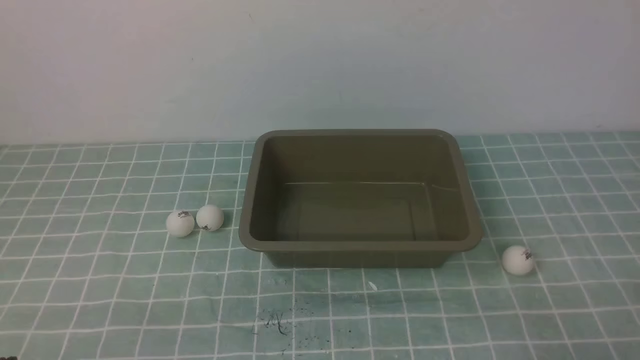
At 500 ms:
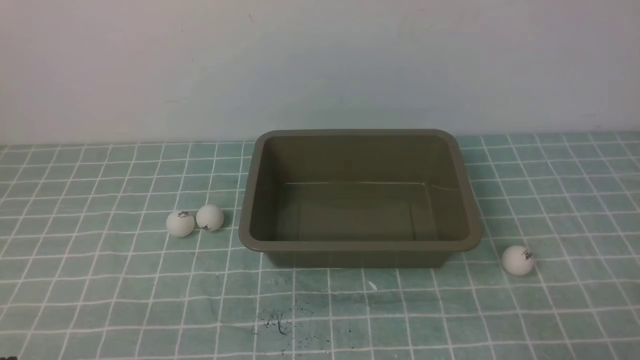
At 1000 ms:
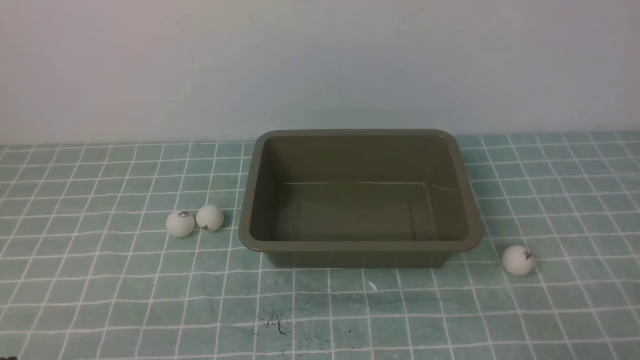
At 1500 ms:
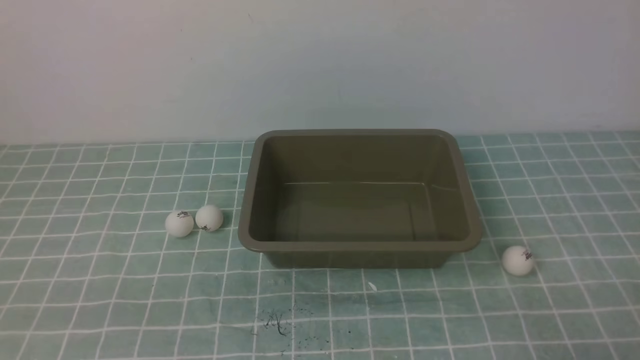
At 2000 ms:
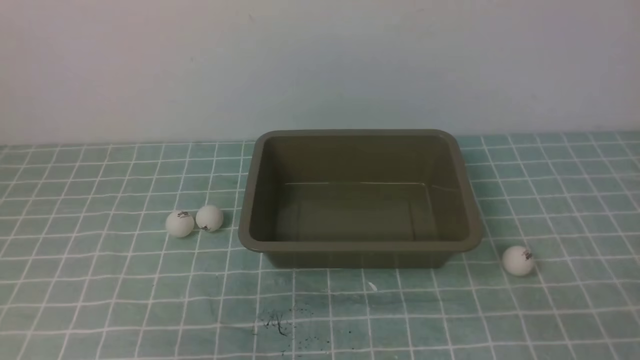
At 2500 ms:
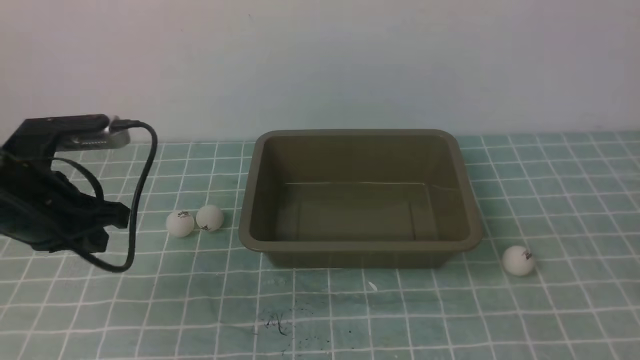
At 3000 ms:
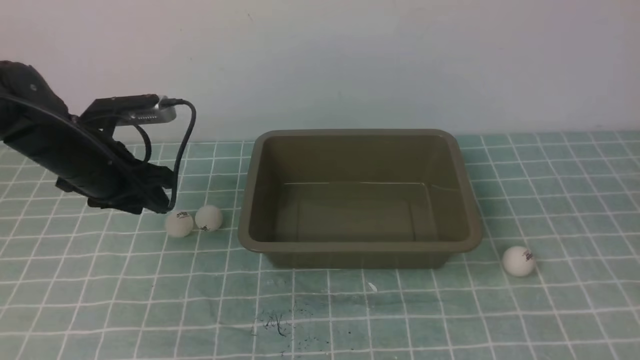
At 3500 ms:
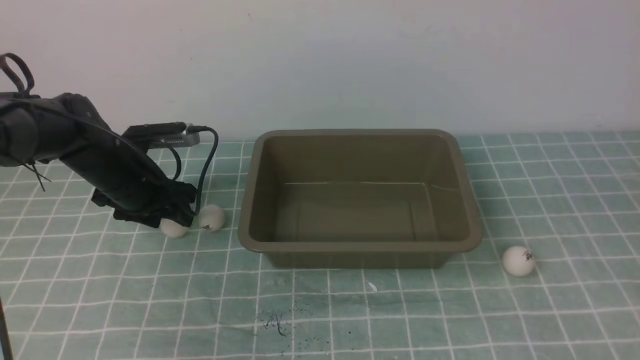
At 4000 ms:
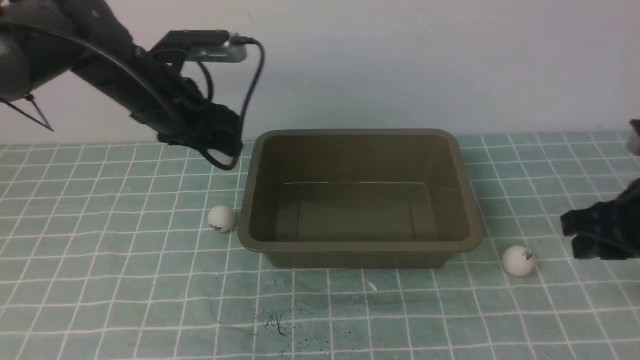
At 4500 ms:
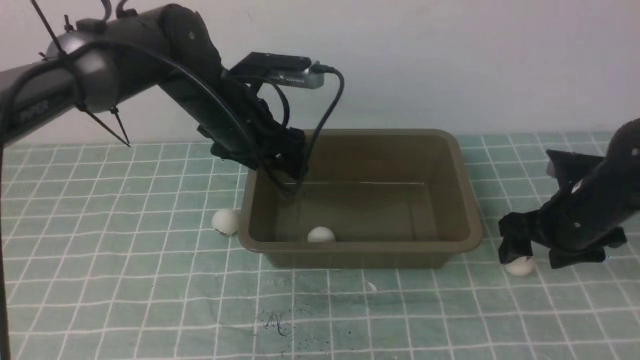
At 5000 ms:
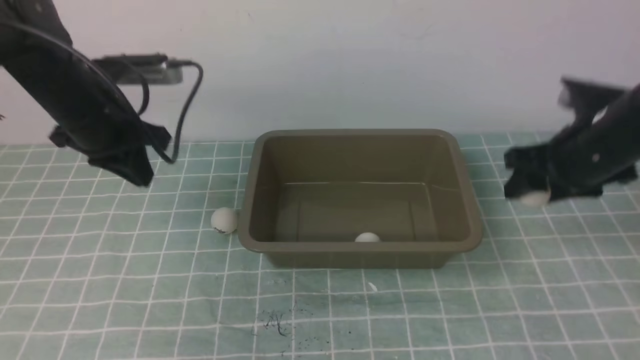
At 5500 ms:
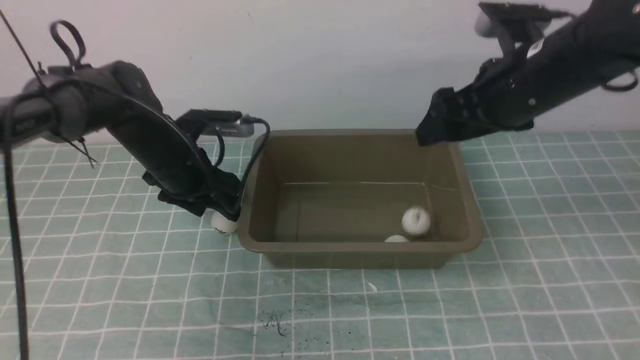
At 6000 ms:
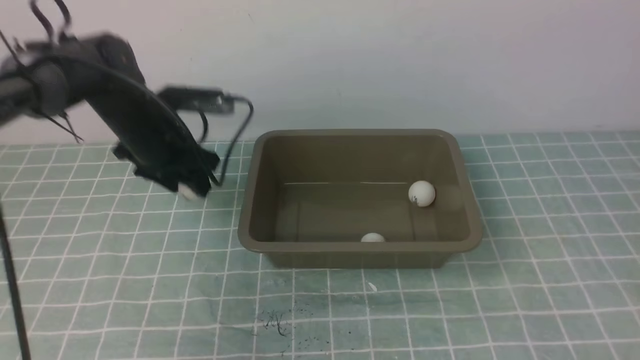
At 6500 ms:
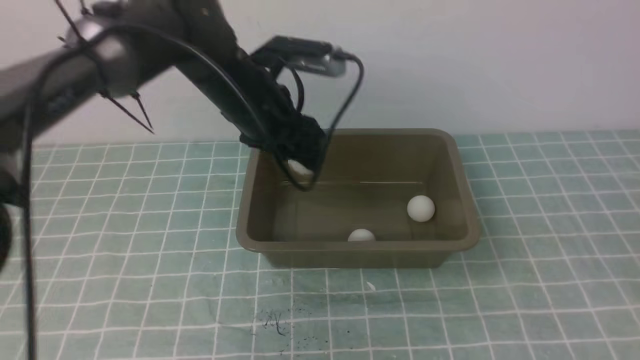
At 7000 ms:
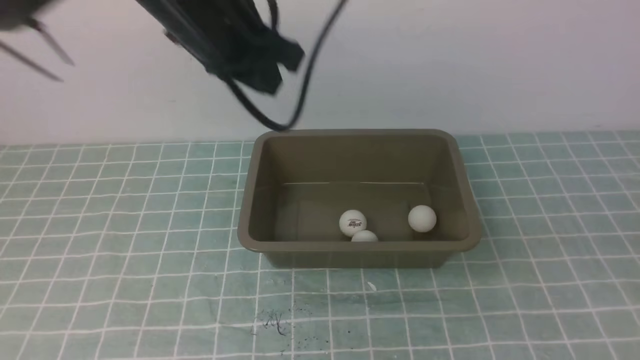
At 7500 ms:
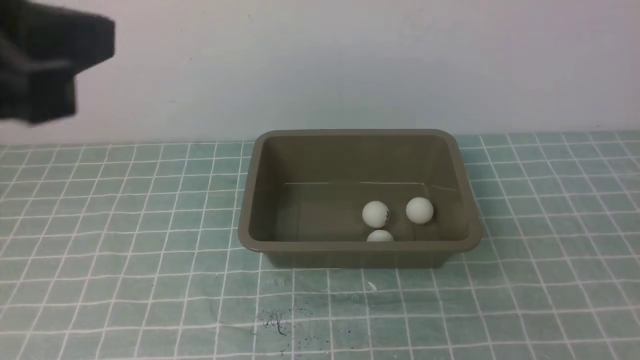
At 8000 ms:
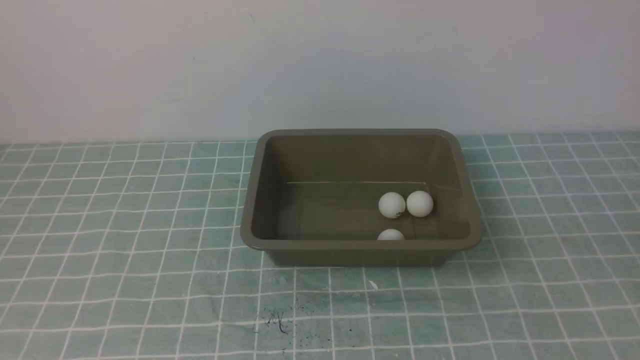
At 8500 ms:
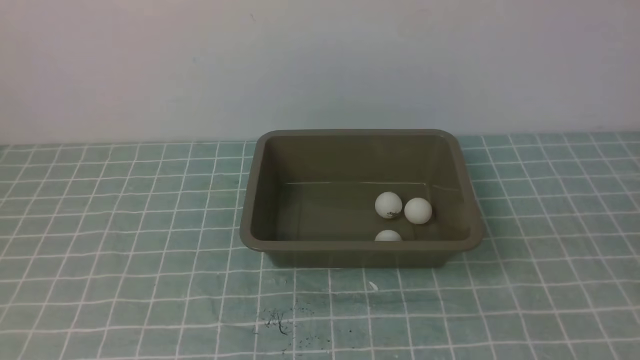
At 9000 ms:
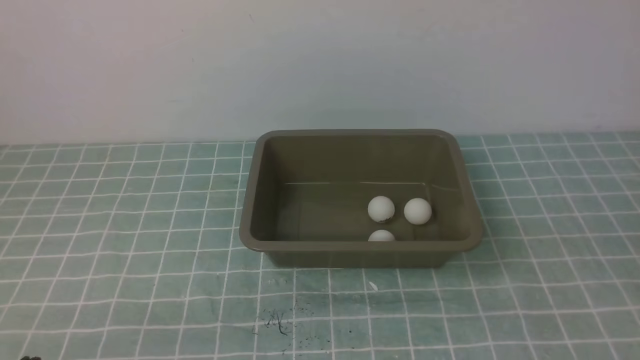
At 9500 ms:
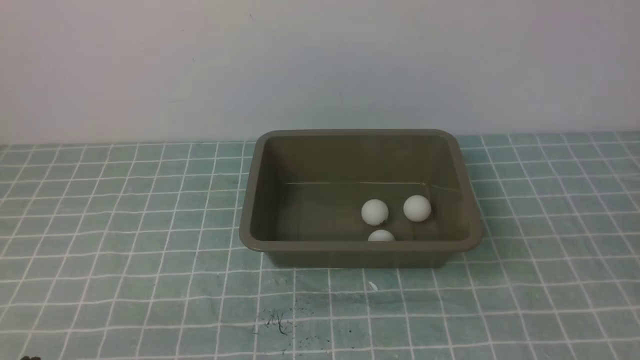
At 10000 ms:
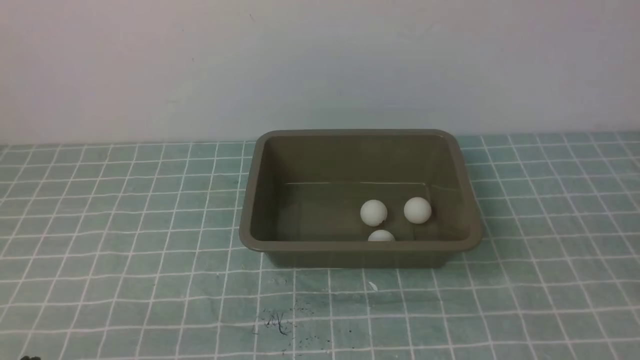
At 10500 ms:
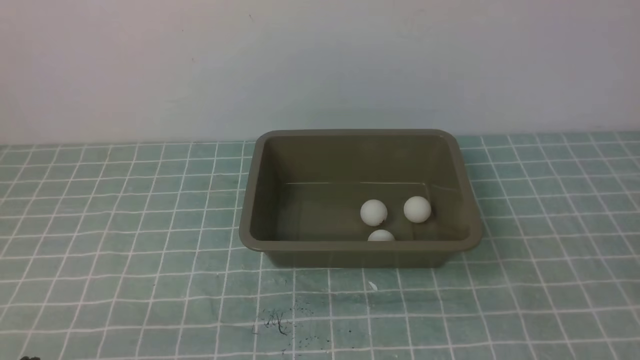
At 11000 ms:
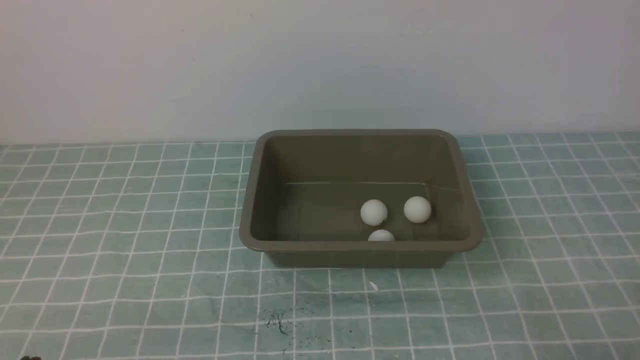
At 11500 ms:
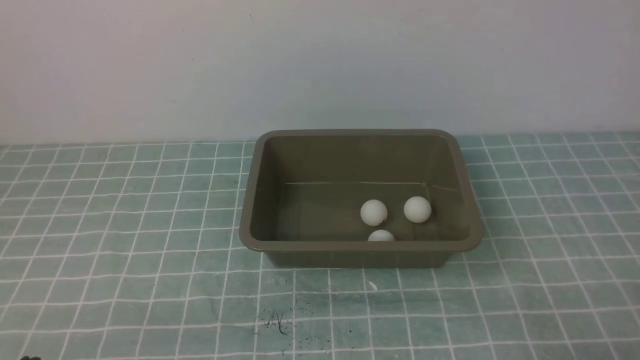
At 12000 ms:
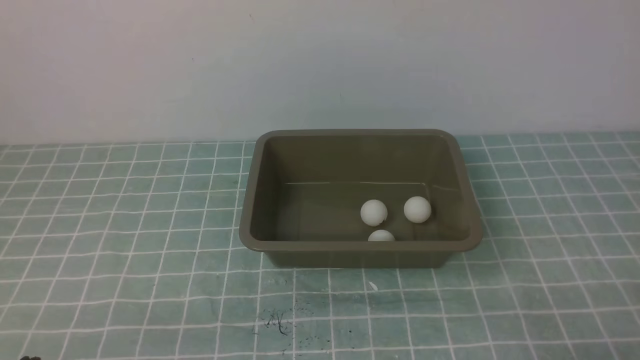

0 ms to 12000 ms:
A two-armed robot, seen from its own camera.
Step, 0 ms to 3500 ms: use the left arm to clamp the table tennis ball closest to it.
Step, 4500 ms to 5000 ms: use the right arm to clamp the table tennis ball closest to it.
2000 ms to 4000 ms: Both grippers travel together forward, roughly 25 cm. The right gripper opens, while the left gripper opens.
4000 ms to 6000 ms: The right gripper is displaced upward and backward by approximately 25 cm, and opens and closes again, while the left gripper goes left and right, roughly 10 cm each way, reversing 2 times, and closes, then reopens.
6000 ms to 8000 ms: The right gripper moves downward and backward, some 15 cm. Meanwhile the left gripper goes some 40 cm backward, and closes.
8000 ms to 10000 ms: The left gripper heads downward, covering about 20 cm.
